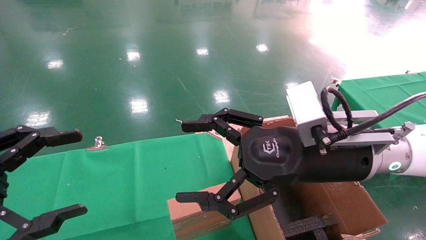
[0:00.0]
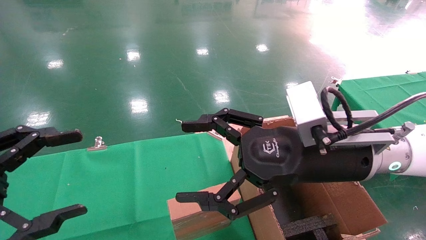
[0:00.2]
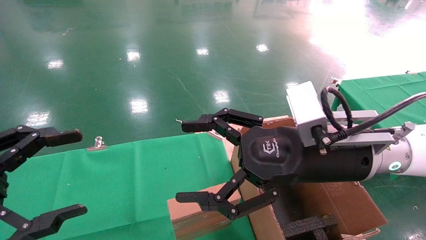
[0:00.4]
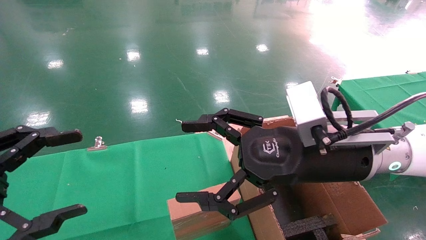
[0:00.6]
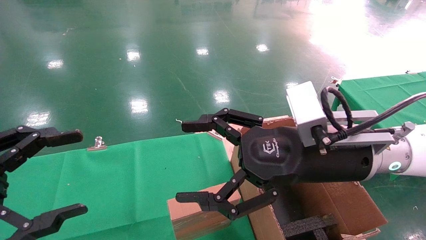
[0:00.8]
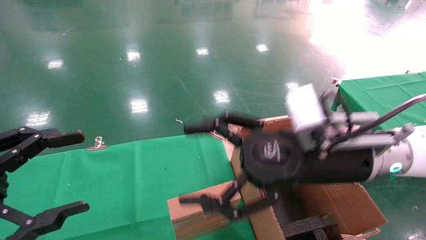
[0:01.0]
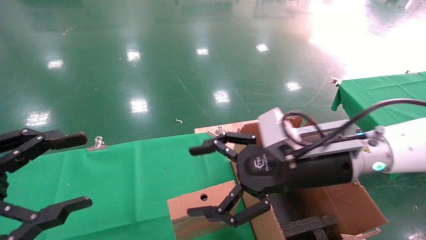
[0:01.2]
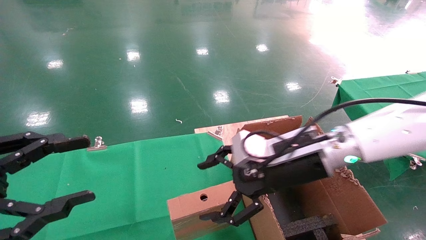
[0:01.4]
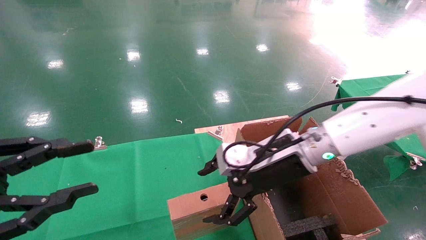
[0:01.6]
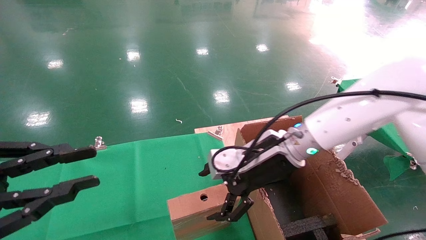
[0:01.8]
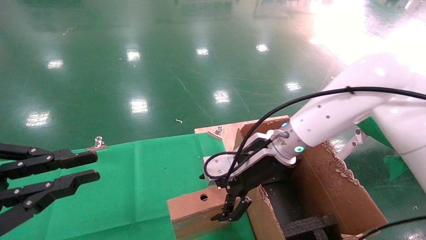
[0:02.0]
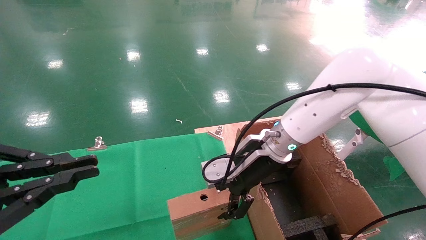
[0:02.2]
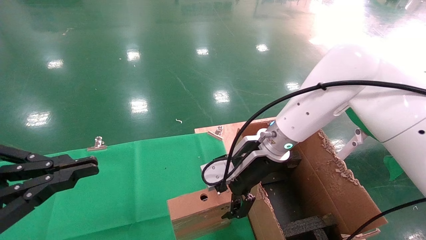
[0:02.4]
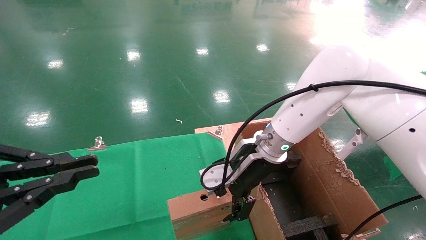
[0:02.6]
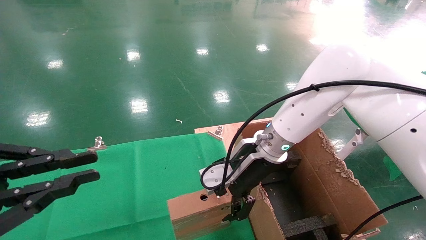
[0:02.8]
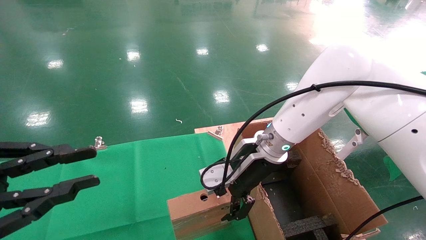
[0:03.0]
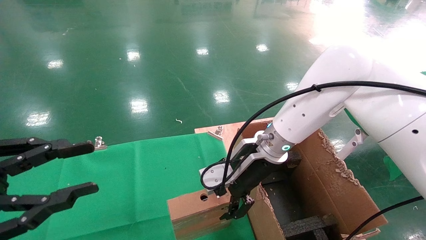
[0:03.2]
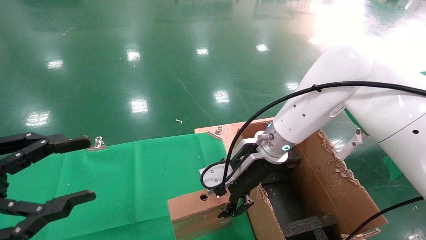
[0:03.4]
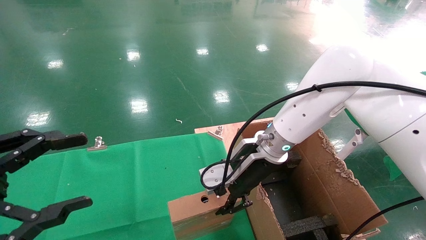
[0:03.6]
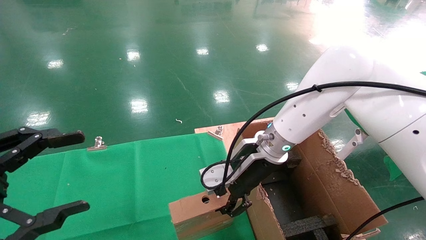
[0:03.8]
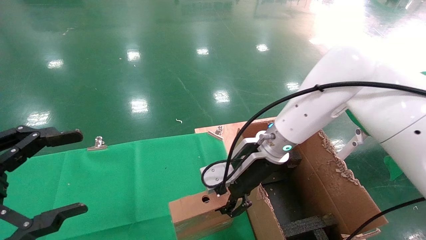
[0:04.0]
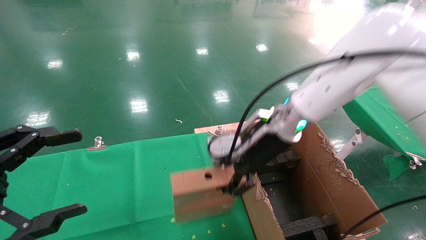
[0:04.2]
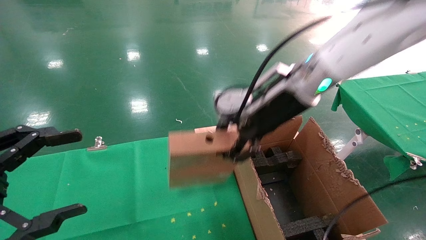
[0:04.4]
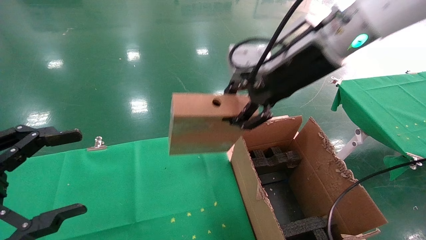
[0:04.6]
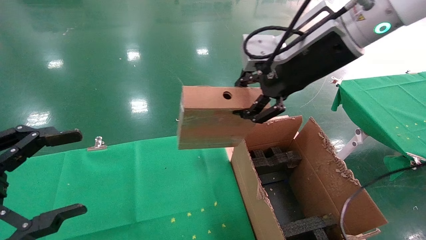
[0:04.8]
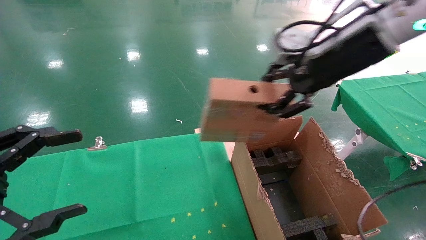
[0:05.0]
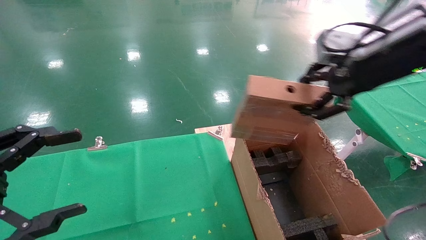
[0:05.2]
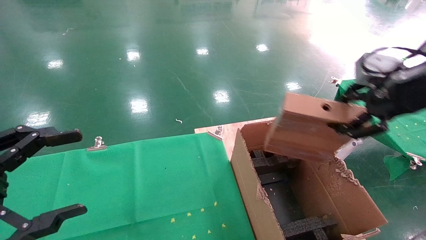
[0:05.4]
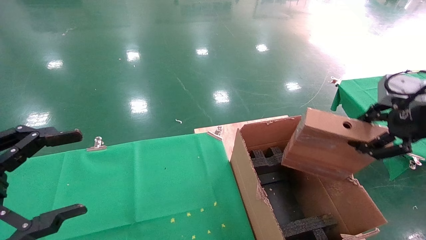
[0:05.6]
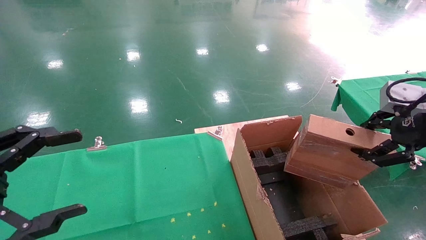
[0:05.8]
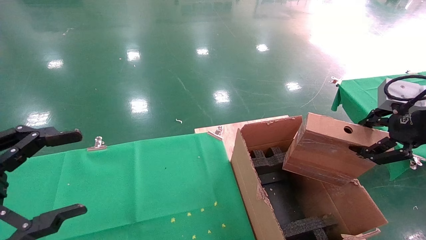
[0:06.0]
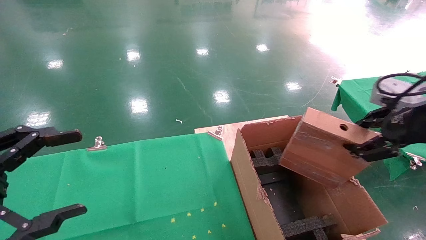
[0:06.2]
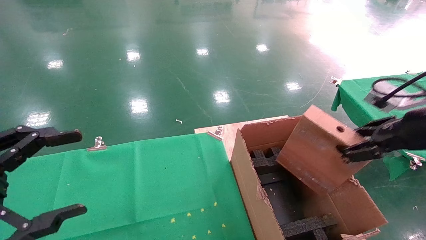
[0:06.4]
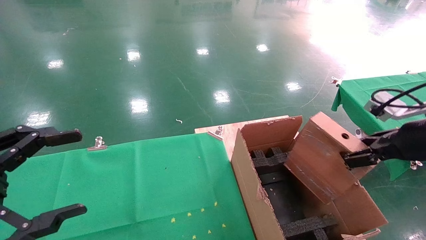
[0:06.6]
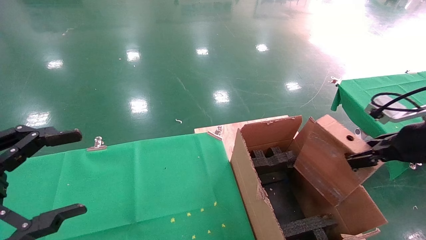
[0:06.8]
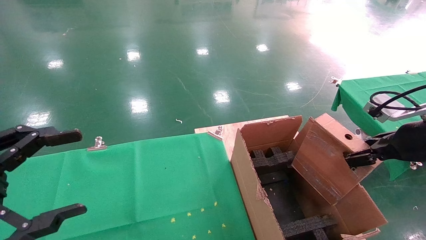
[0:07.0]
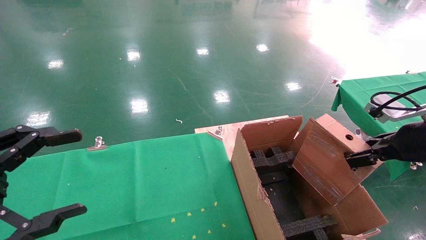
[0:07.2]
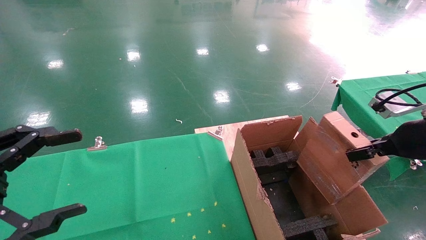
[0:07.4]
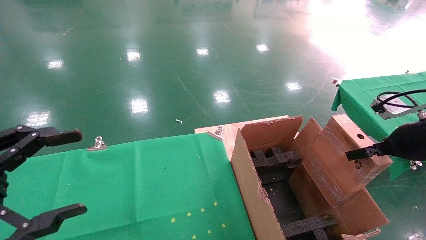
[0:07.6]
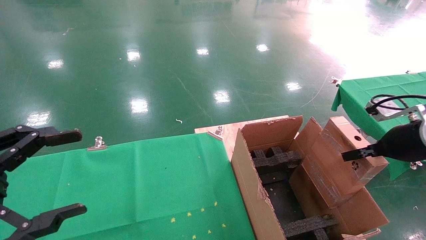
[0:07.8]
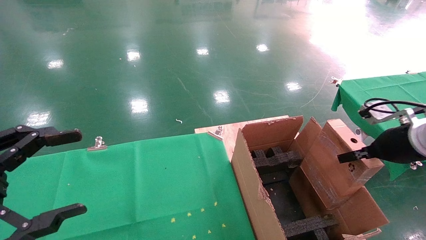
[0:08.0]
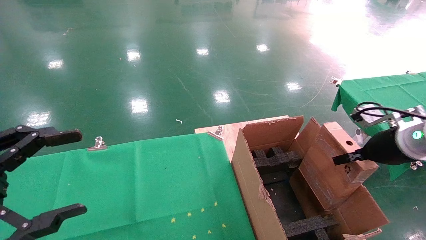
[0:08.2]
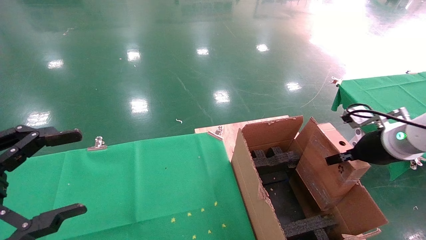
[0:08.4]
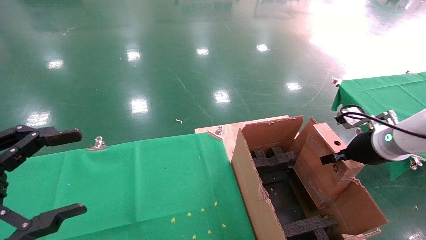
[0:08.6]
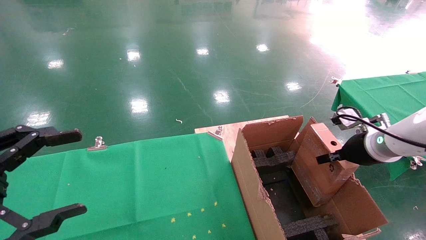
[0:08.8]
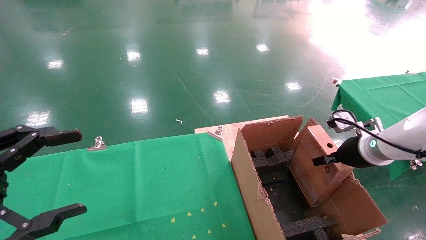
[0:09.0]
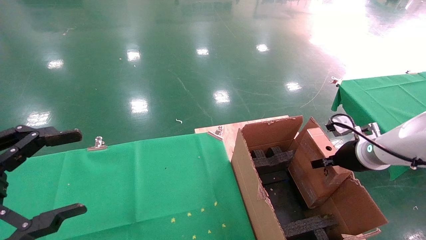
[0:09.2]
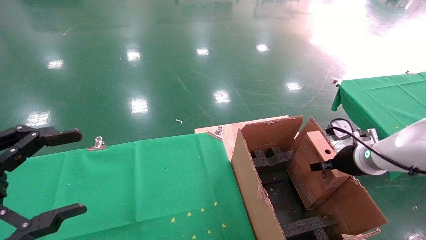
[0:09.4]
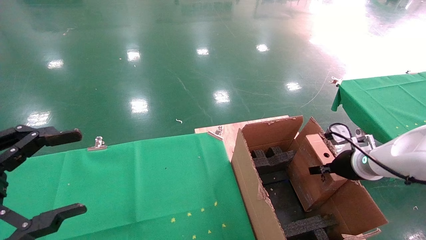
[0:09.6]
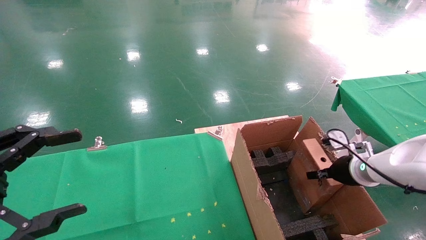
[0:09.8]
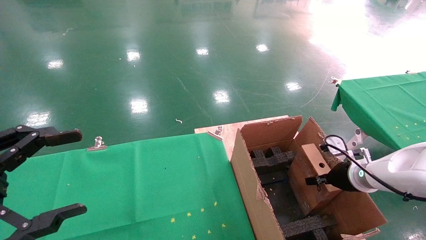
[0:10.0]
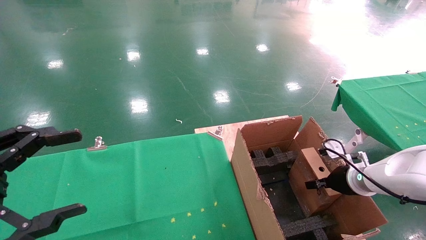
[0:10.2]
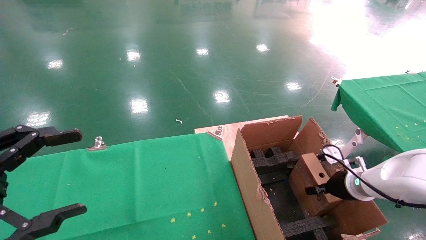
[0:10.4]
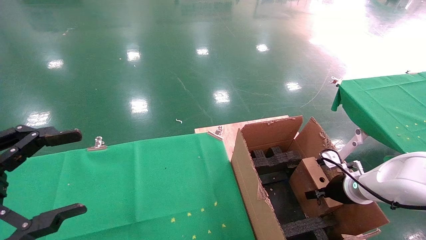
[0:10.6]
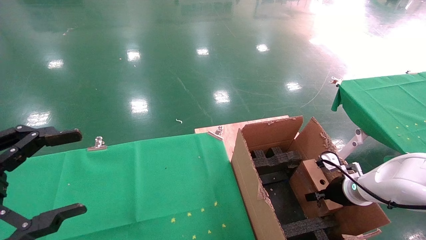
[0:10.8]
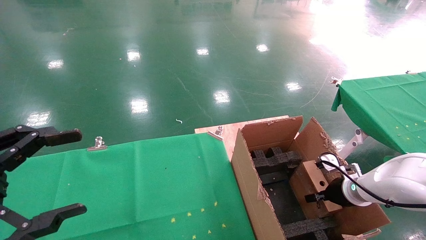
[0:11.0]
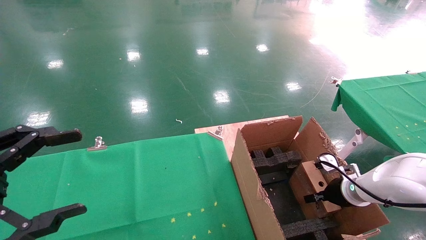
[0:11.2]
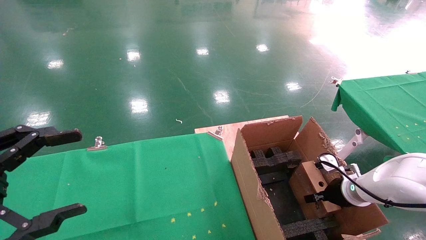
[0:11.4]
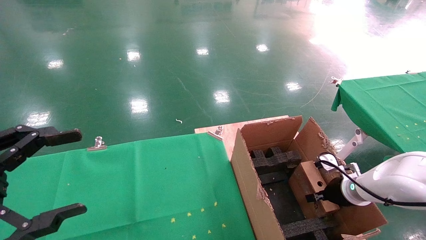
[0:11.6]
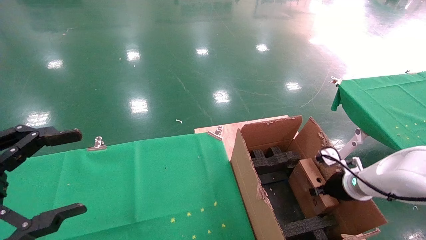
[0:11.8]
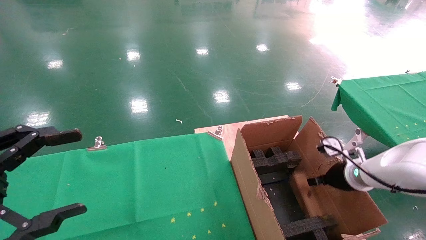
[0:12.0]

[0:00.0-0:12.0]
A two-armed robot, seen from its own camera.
Task of the whole recording: using a robotic arm to pick up a cardboard box and palace it the carton.
Step, 0:01.2 to 0:03.6: Pick up the mouse and the power cord paper box.
0:00.0 to 0:01.6: The left gripper closes; the right gripper shifts some 10 cm forward.
0:01.6 to 0:03.0: The right gripper moves some 5 cm. Meanwhile the left gripper closes its fingers.
0:03.0 to 0:04.4: The right gripper goes approximately 15 cm upward, and closes up, while the left gripper opens up.
0:04.4 to 0:06.0: The right gripper heads to the right and backward, covering roughly 25 cm.
0:06.0 to 0:07.6: The right gripper goes some 5 cm downward.
0:07.6 to 0:09.0: The right gripper heads forward and downward, covering approximately 10 cm.
0:09.0 to 0:10.4: The right gripper goes some 10 cm downward.
0:10.4 to 0:12.0: The right gripper opens up.

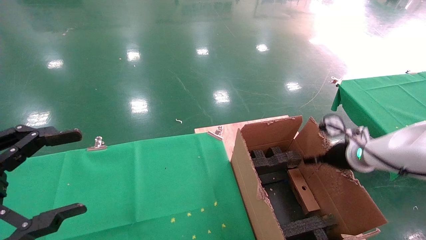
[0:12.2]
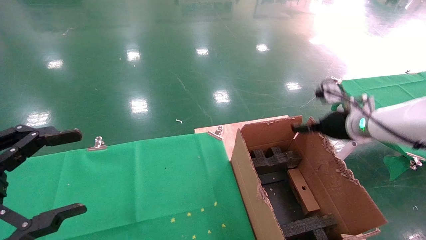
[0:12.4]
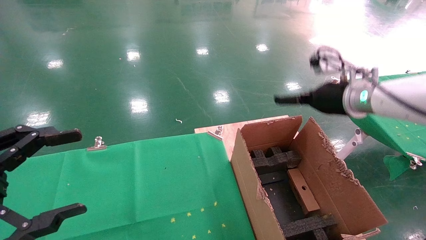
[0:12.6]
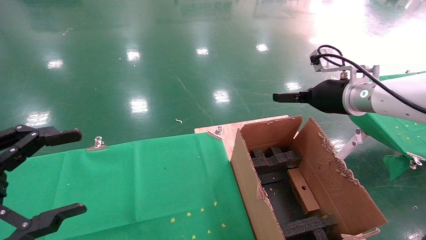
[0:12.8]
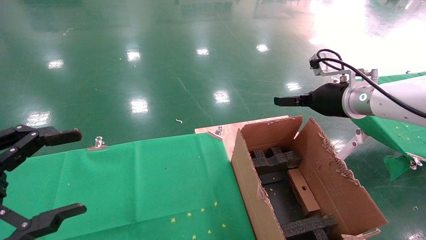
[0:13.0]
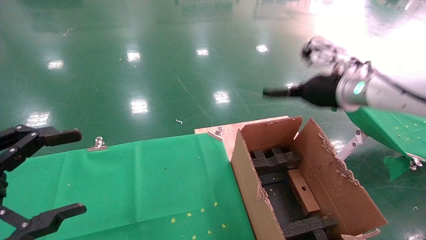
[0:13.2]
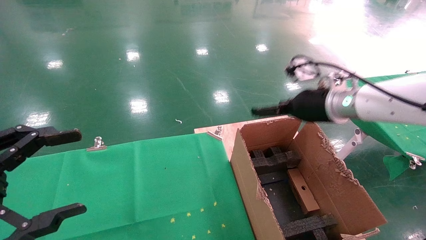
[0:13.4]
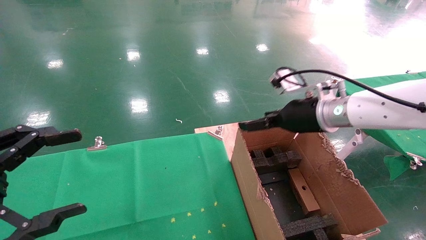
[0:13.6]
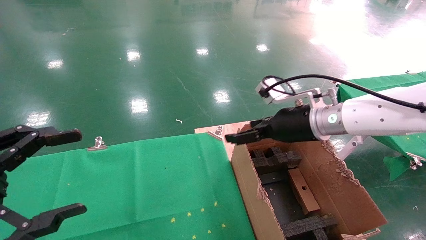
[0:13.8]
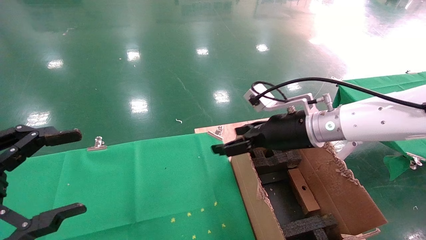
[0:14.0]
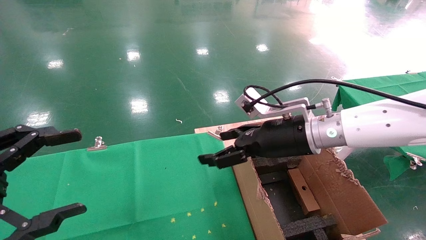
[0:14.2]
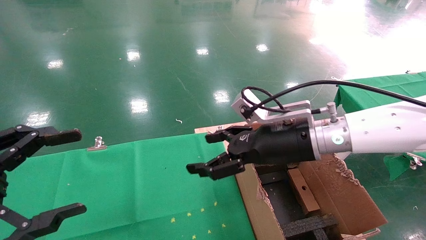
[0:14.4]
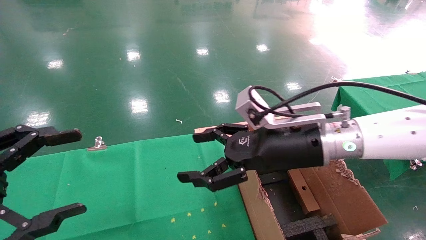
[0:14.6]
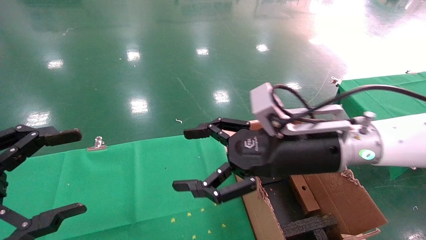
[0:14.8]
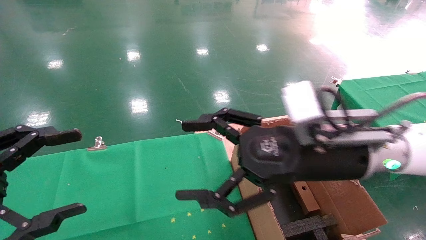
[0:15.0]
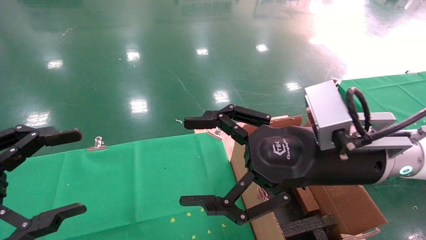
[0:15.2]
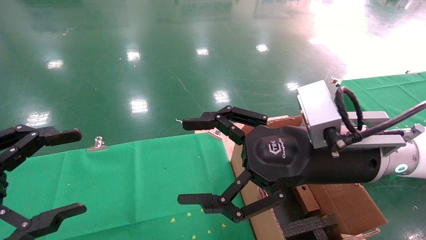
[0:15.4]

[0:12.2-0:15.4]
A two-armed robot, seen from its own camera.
Task of the whole recording: using a robotic arm to pick up a cardboard box and palace it the carton.
0:12.2 to 0:13.8: The right gripper is displaced to the left and upward by about 15 cm, and opens.
0:13.8 to 0:15.4: The right gripper heads backward, covering about 15 cm.
